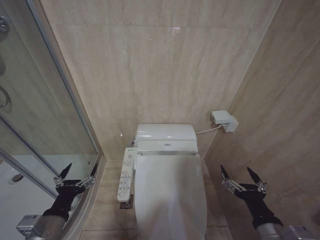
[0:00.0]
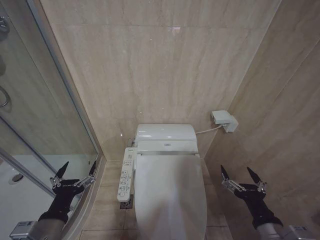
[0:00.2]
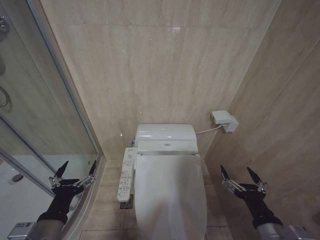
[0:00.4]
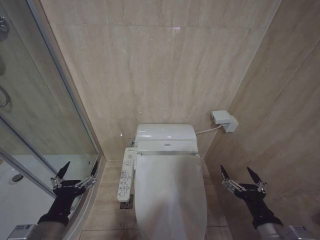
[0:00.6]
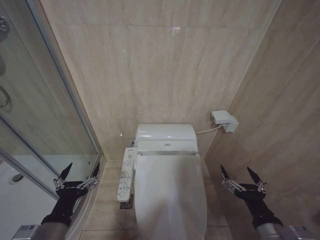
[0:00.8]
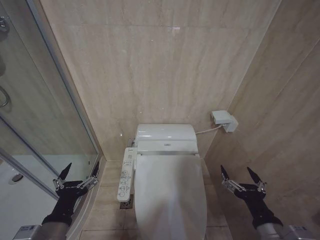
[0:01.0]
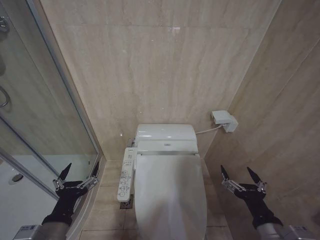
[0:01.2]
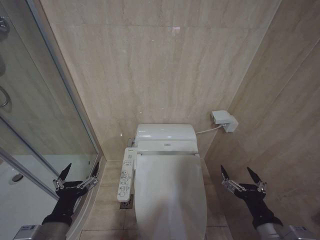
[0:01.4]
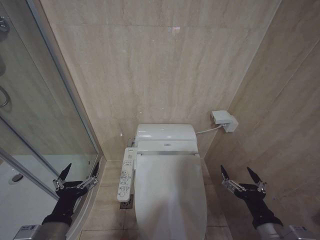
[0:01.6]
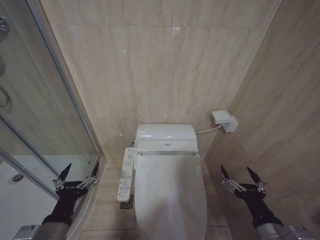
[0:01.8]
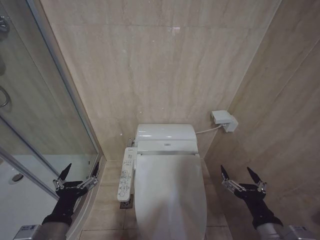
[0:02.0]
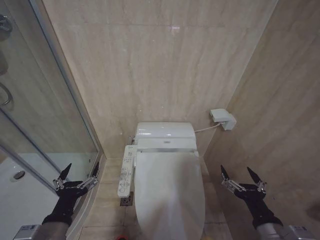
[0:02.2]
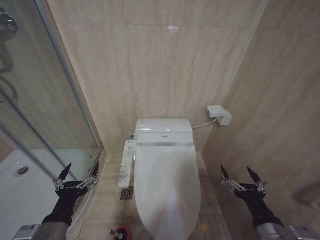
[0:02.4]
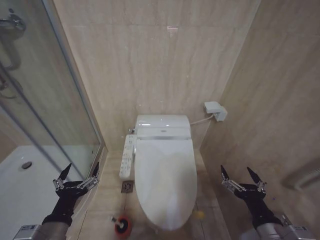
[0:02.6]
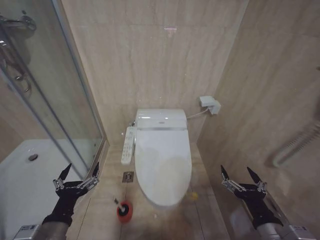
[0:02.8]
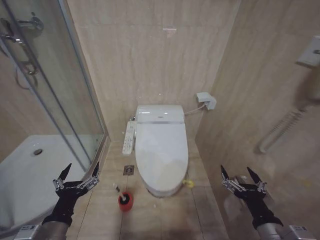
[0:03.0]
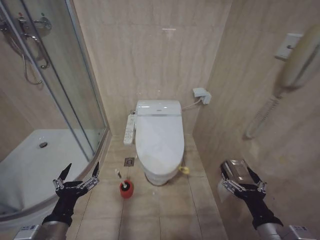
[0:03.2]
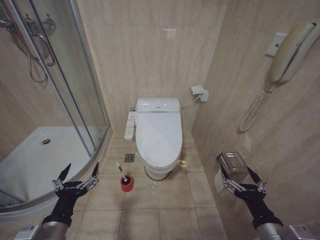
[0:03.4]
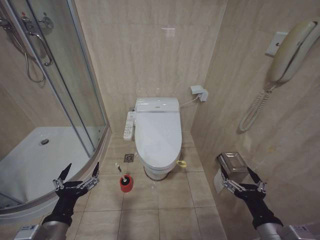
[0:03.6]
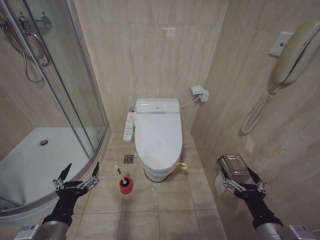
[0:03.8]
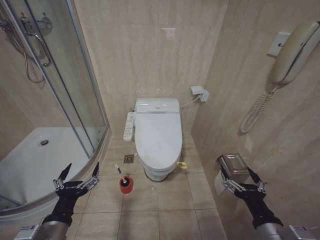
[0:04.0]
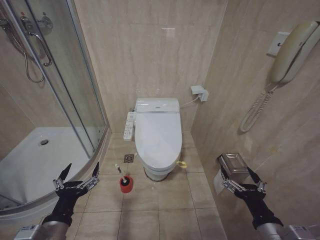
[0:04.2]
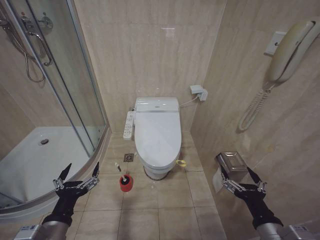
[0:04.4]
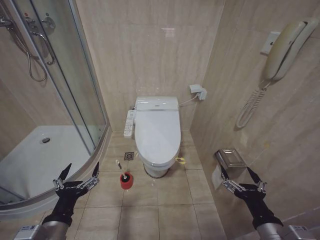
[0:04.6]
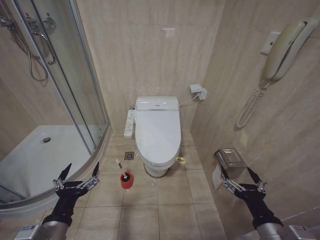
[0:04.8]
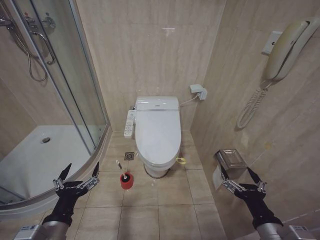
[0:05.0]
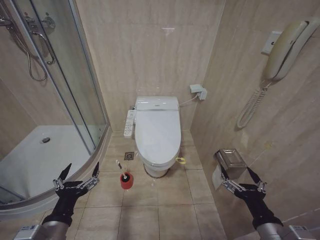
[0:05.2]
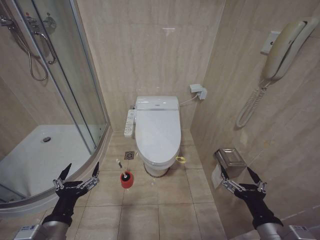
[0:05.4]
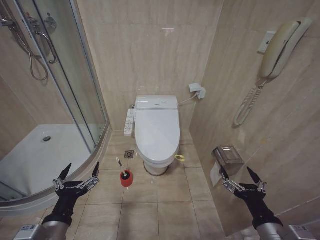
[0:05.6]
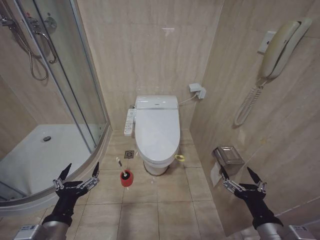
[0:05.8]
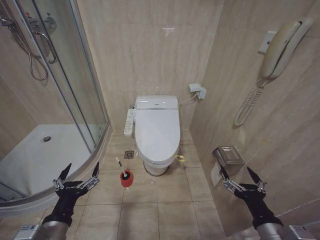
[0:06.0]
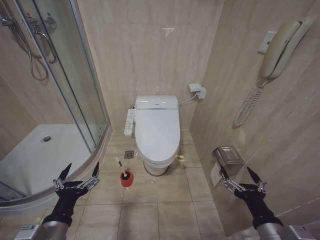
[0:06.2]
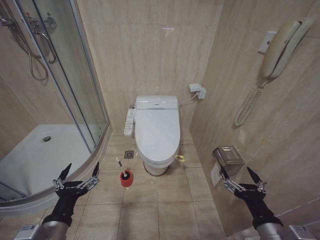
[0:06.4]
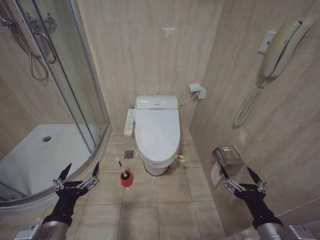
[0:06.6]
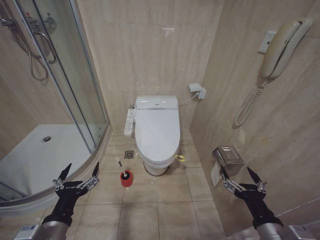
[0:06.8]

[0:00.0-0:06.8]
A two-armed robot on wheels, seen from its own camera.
Task of the whole recording: Open the toilet lid, clean the toilet bowl with a toilet brush, close the toilet lid, and flush.
0:00.0 to 0:01.4: There are only small adjustments of the grippers.
0:01.4 to 0:06.8: Both grippers stay about where they are.

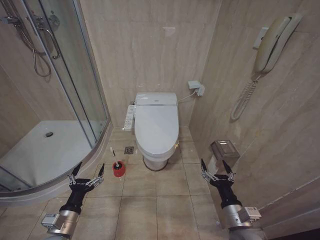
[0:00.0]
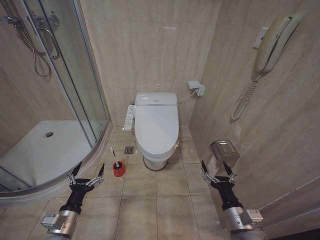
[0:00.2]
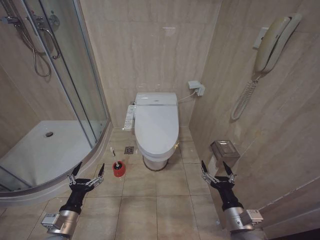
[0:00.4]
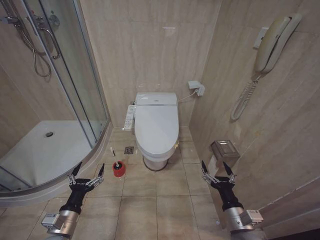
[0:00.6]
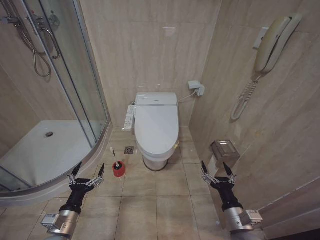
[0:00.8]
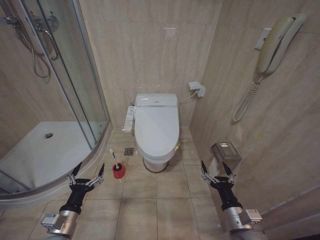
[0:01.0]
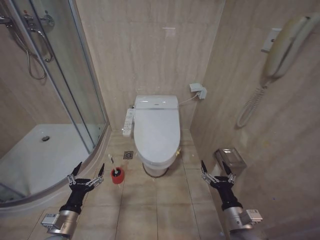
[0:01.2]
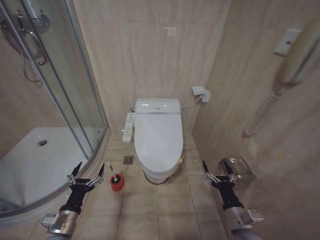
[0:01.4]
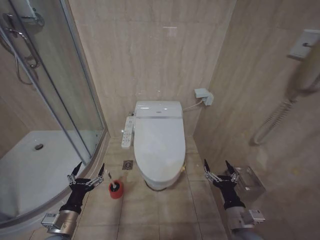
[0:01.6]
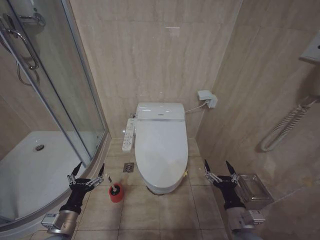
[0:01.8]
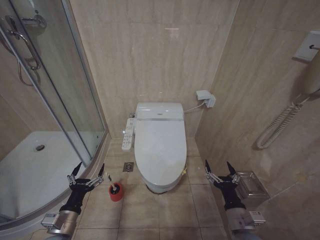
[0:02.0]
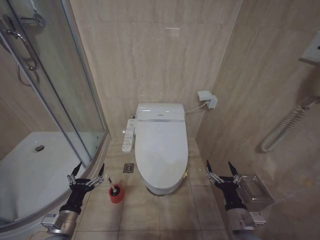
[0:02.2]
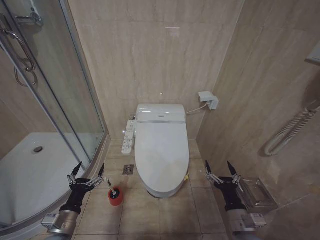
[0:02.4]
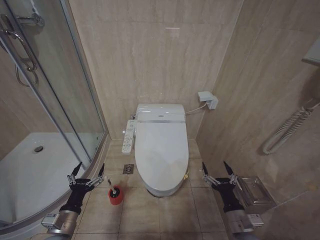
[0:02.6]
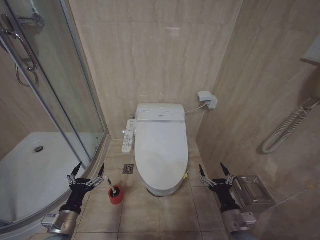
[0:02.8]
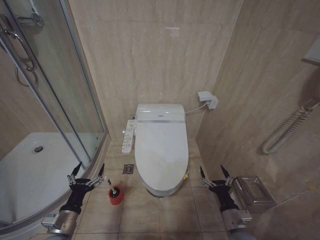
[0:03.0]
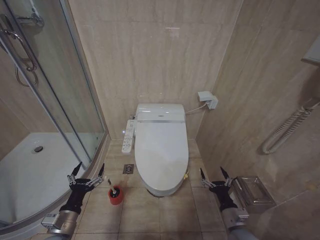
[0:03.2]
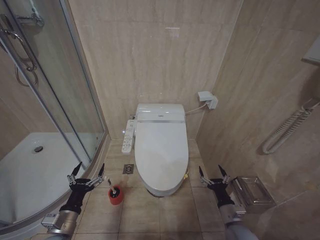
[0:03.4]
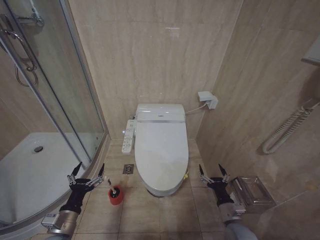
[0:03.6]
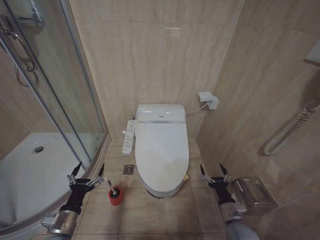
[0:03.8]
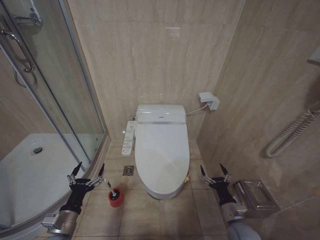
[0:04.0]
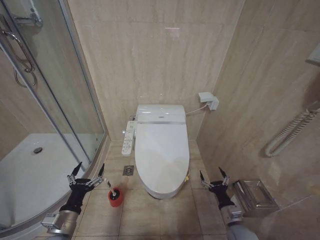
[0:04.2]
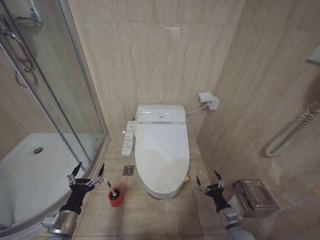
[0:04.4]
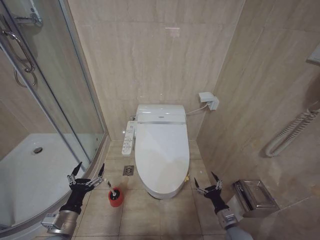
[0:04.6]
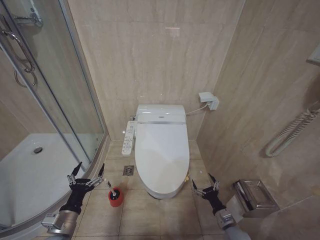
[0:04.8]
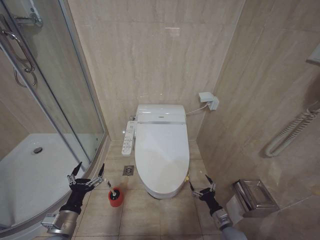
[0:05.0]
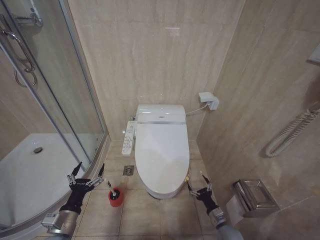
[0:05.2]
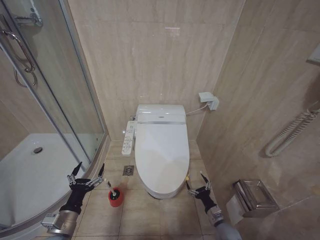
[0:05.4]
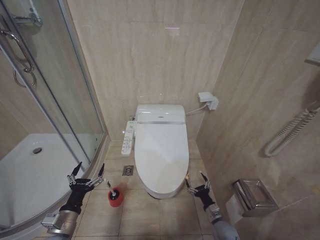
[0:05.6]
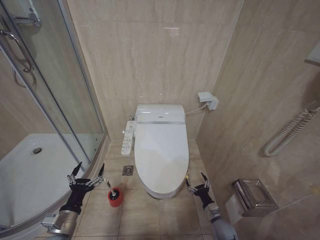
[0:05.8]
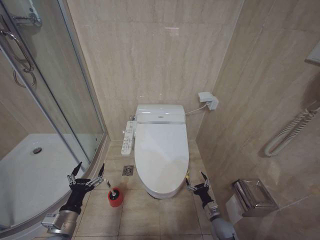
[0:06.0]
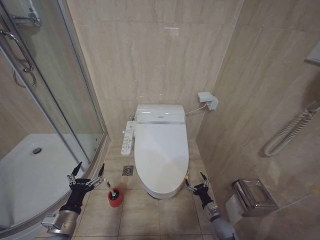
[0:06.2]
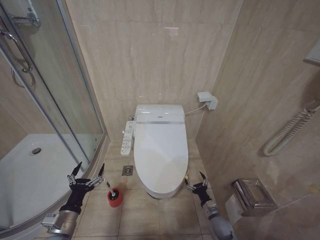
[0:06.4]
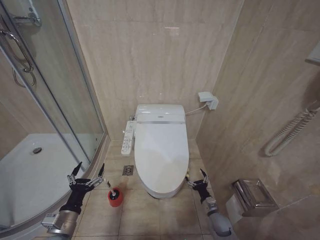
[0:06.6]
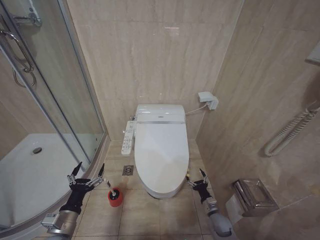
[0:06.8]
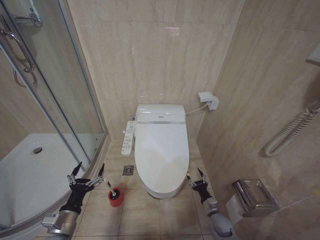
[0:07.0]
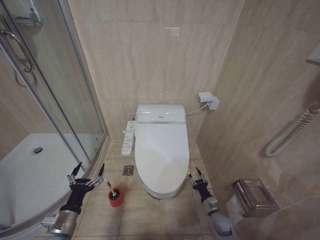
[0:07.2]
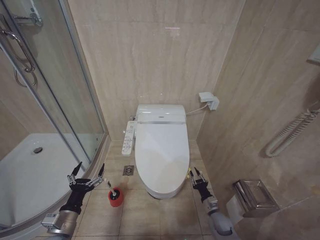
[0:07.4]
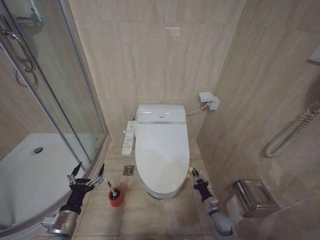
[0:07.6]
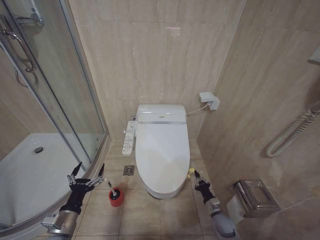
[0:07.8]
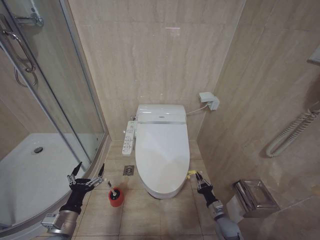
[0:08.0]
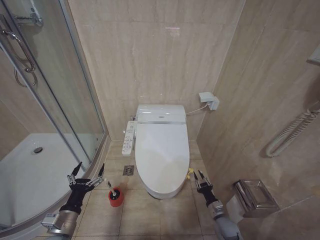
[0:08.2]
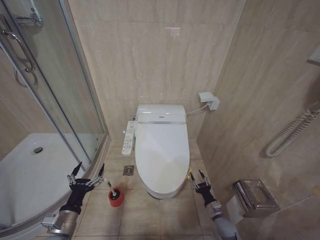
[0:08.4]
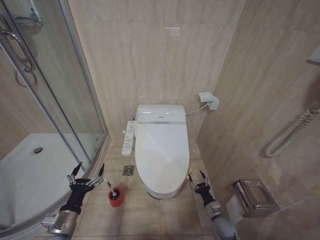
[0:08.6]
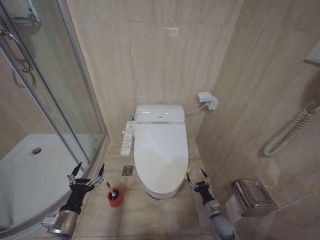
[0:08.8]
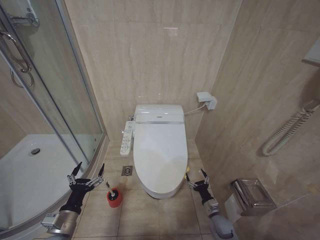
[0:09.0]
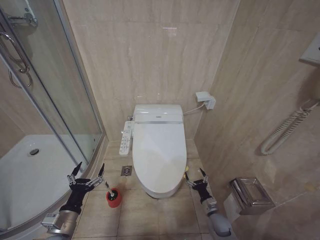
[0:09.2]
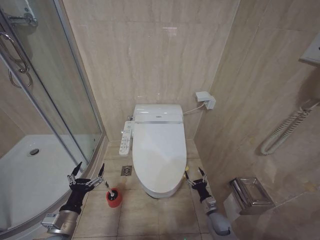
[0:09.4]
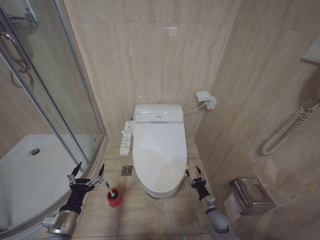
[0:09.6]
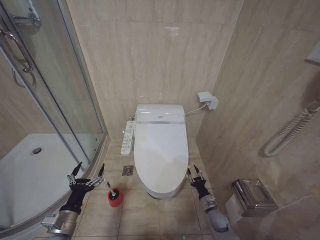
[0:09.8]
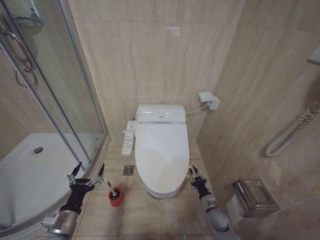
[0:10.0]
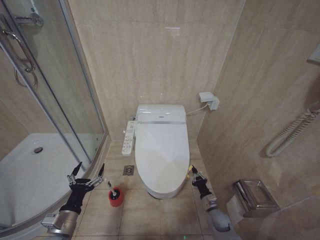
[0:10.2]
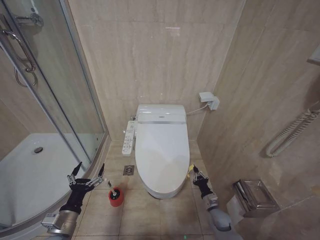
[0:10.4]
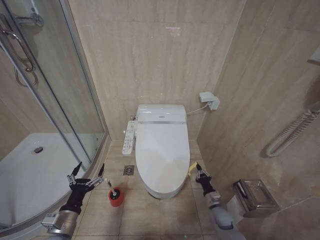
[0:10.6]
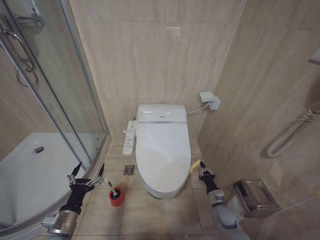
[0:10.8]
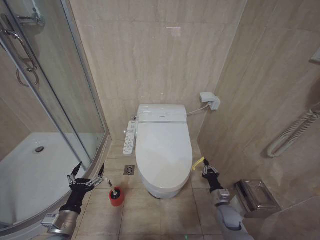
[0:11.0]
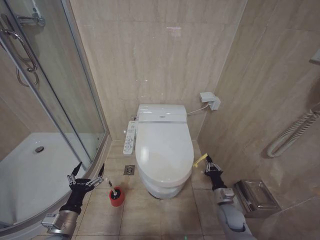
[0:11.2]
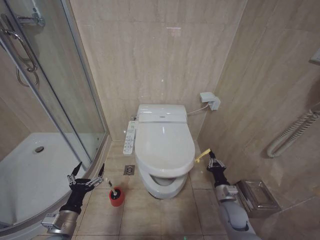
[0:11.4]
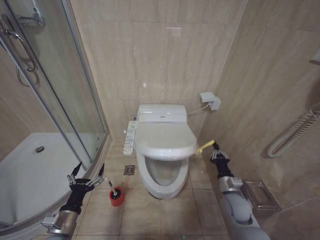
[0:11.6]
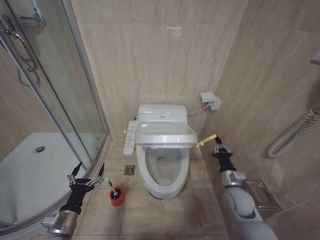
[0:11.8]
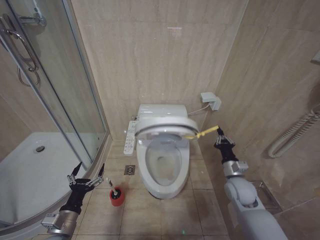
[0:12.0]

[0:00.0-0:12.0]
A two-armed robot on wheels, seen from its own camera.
Task of the whole recording: Open the toilet lid, clean the toilet bowl with a toilet brush, close the toilet lid, and flush.
0:01.6 to 0:03.0: The grippers move only a little.
0:03.0 to 0:04.4: The right gripper is displaced downward by some 10 cm.
0:04.4 to 0:06.0: The right gripper travels downward and forward by about 10 cm.
0:06.0 to 0:07.6: The right gripper closes.
0:07.6 to 0:09.0: The right gripper opens its fingers.
0:09.0 to 0:10.4: The right gripper closes.
0:10.4 to 0:12.0: The right gripper is displaced upward by roughly 20 cm.

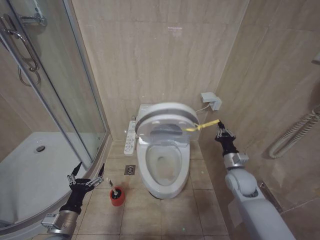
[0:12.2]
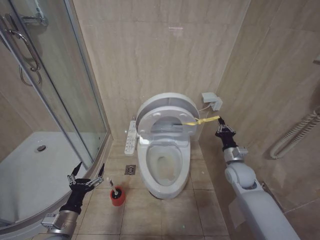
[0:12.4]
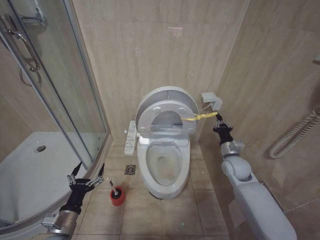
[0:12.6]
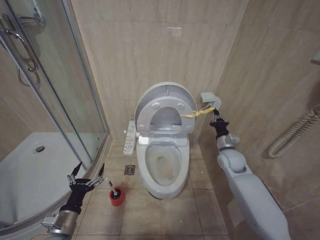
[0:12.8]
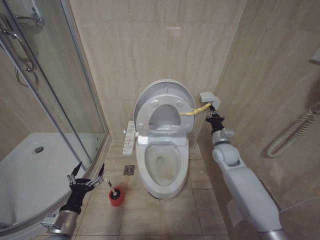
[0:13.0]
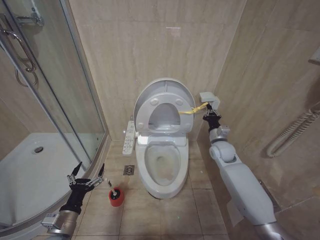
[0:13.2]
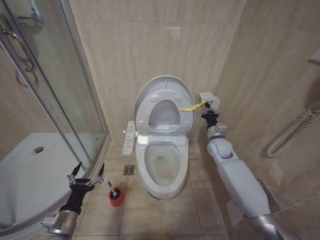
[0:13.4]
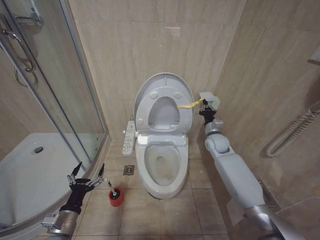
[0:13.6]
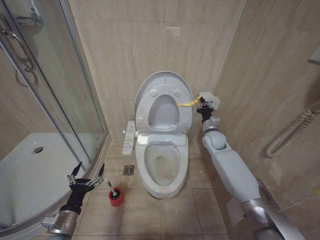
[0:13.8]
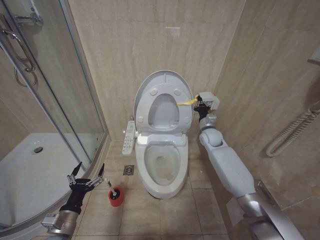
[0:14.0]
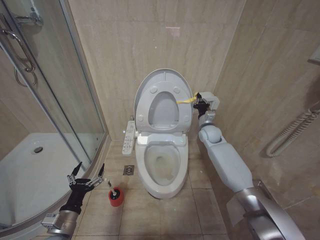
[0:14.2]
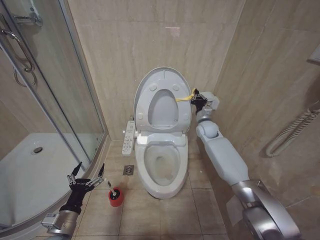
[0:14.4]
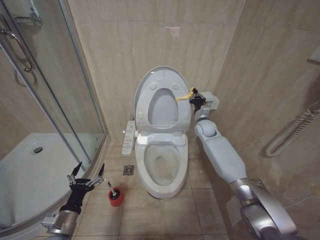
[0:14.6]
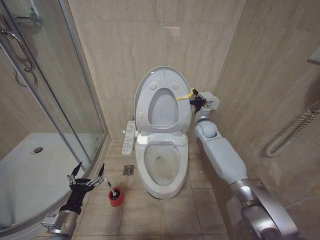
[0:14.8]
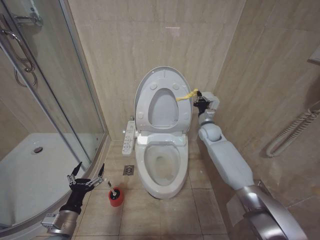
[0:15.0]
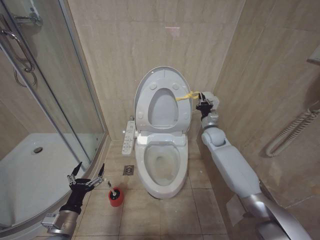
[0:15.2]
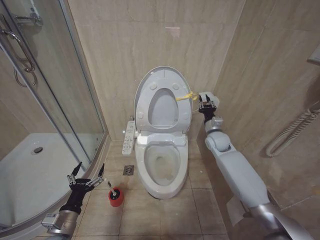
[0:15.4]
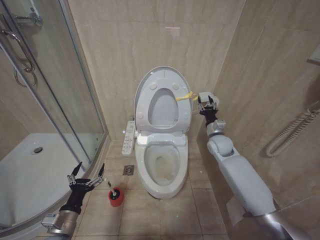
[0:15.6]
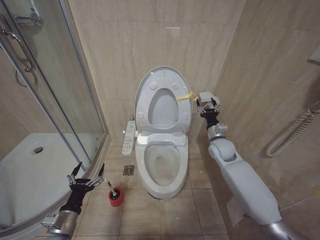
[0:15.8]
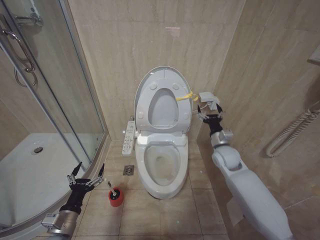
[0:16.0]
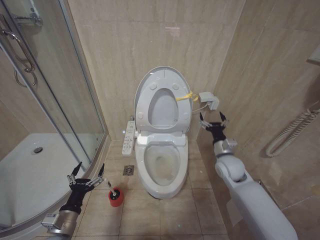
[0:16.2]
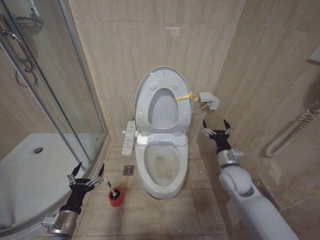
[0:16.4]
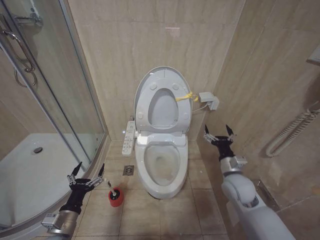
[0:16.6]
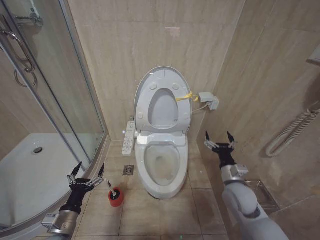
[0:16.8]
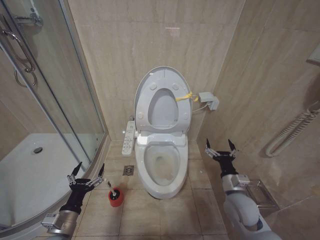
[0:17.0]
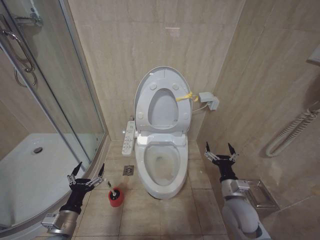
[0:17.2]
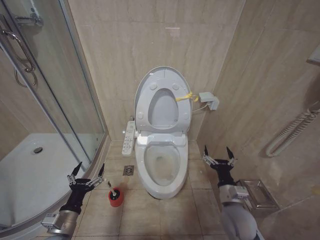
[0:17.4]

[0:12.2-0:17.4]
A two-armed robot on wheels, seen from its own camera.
Task of the whole recording: Open the toilet lid, clean the toilet bowl with a toilet brush, close the toilet lid, and flush.
0:12.2 to 0:14.0: The right gripper is displaced forward by about 20 cm.
0:14.0 to 0:15.6: The grippers stay close to where they were, moving slightly.
0:15.6 to 0:17.4: The right gripper goes roughly 25 cm backward and downward, and opens its fingers.
